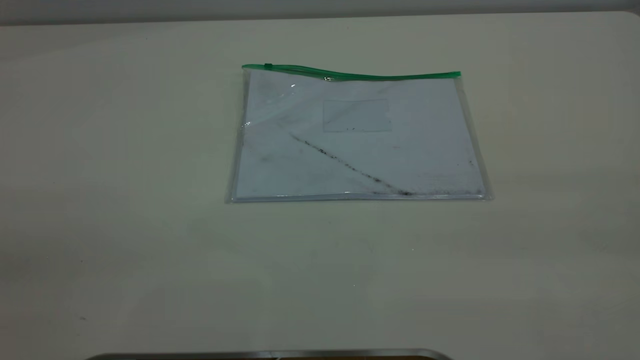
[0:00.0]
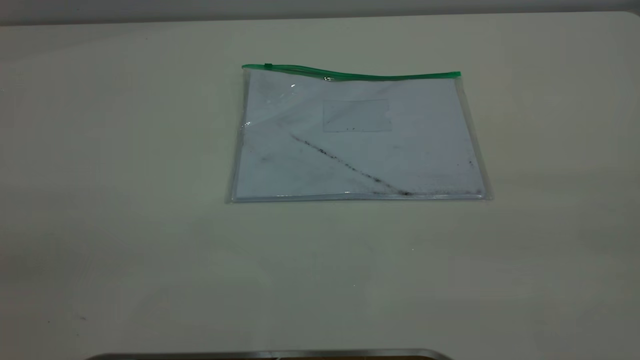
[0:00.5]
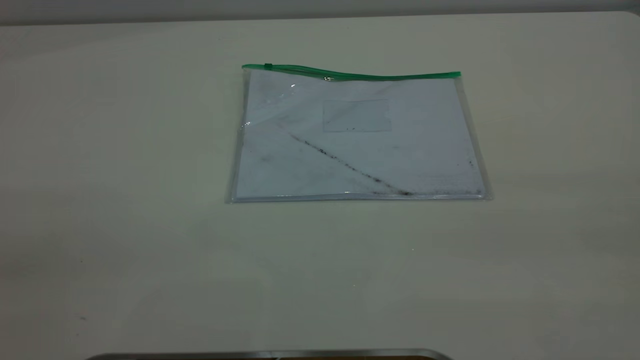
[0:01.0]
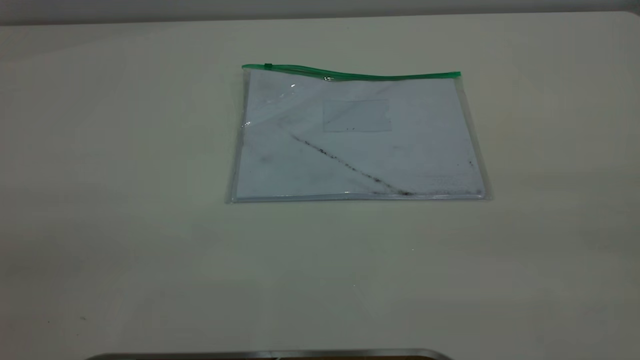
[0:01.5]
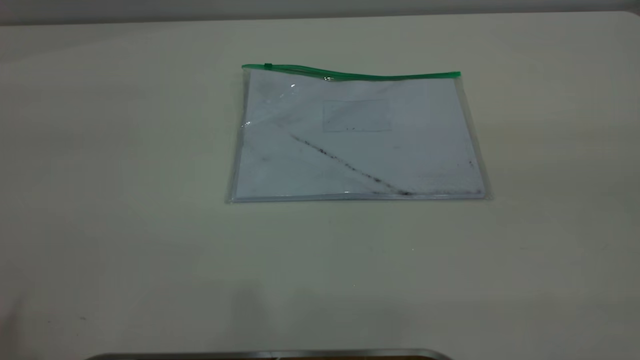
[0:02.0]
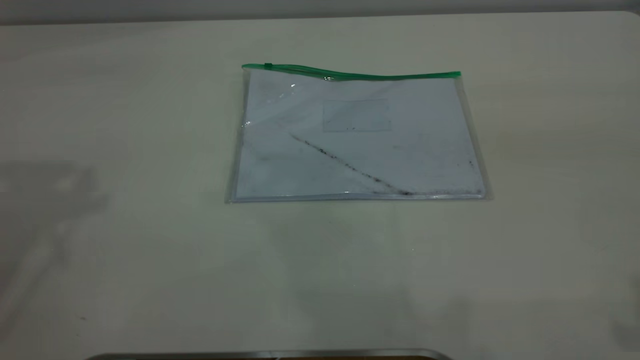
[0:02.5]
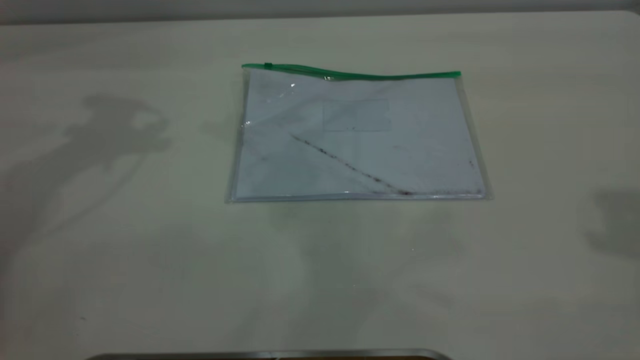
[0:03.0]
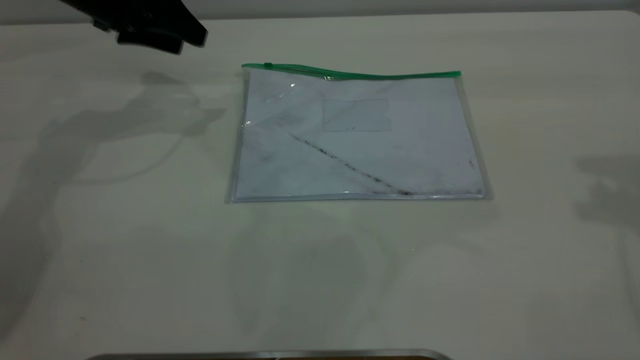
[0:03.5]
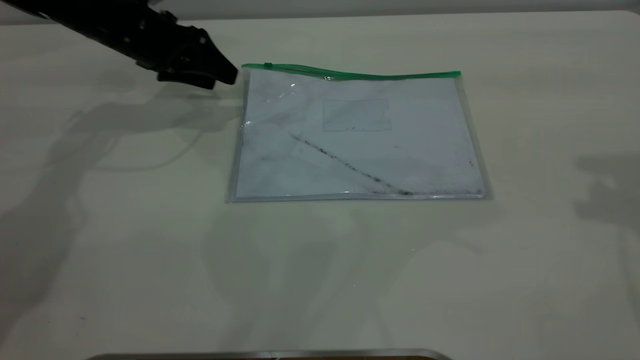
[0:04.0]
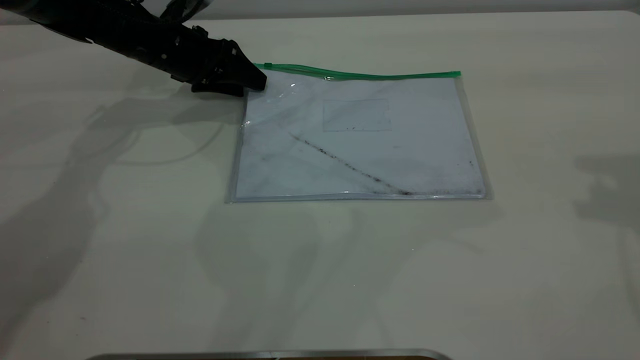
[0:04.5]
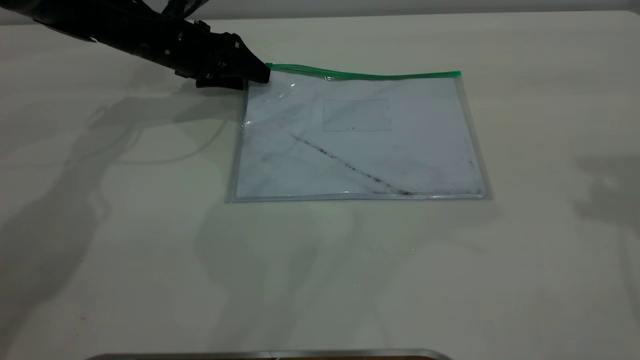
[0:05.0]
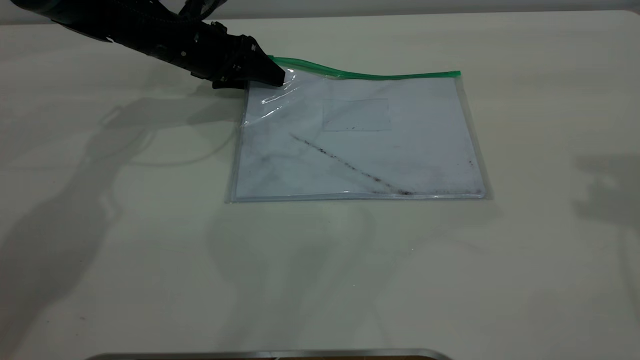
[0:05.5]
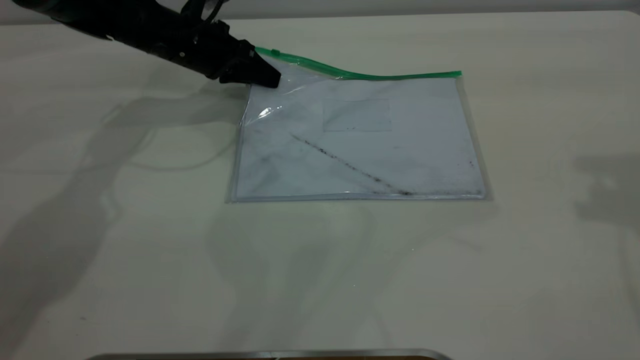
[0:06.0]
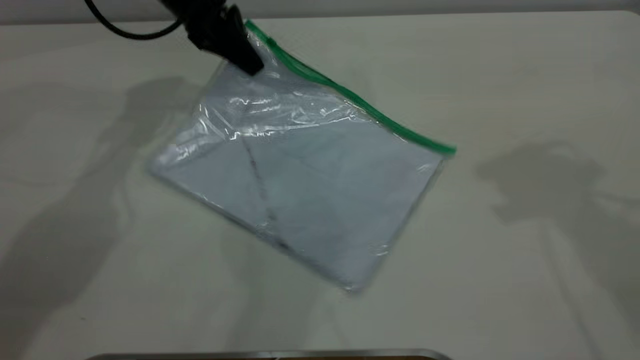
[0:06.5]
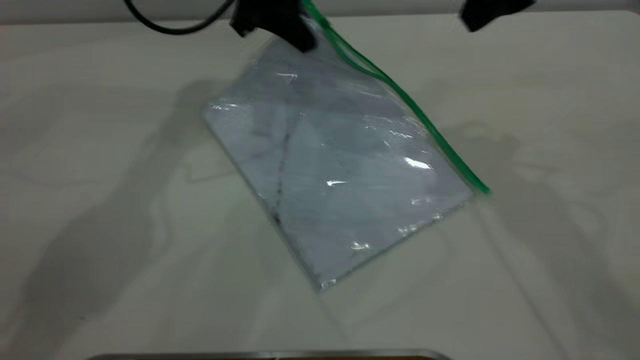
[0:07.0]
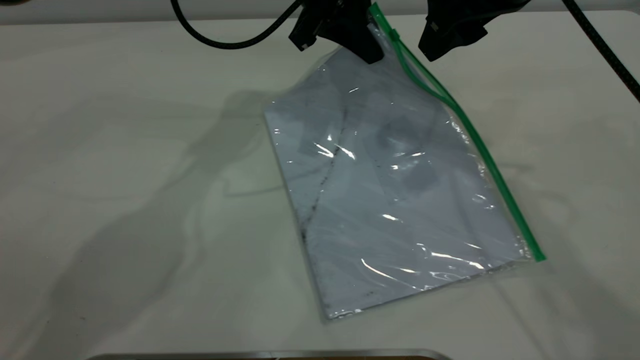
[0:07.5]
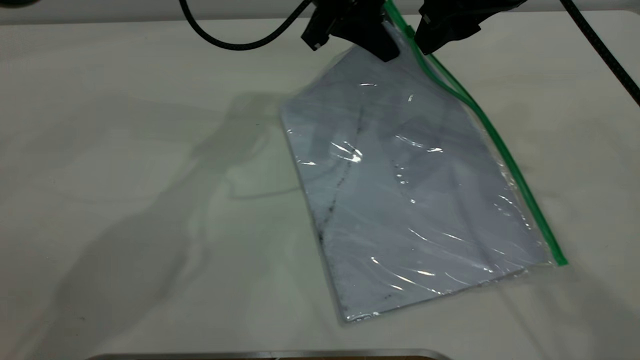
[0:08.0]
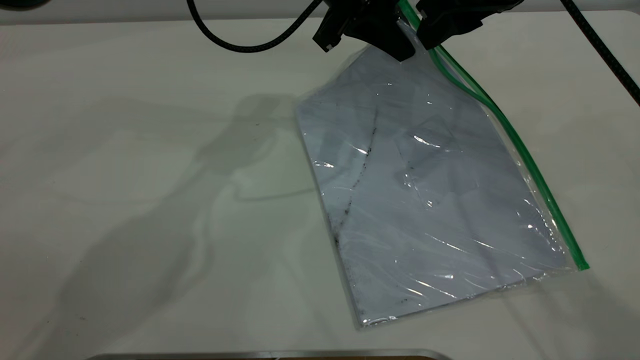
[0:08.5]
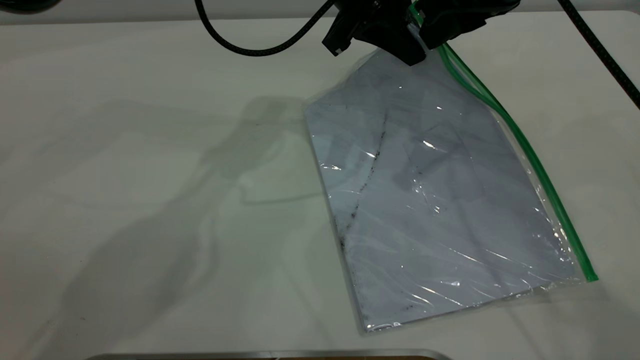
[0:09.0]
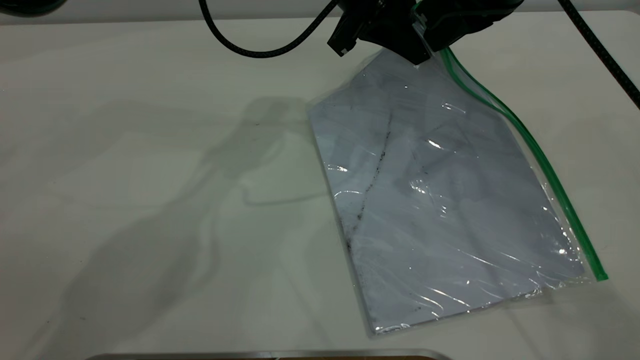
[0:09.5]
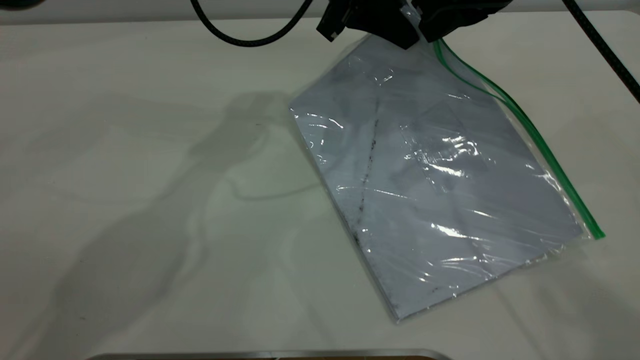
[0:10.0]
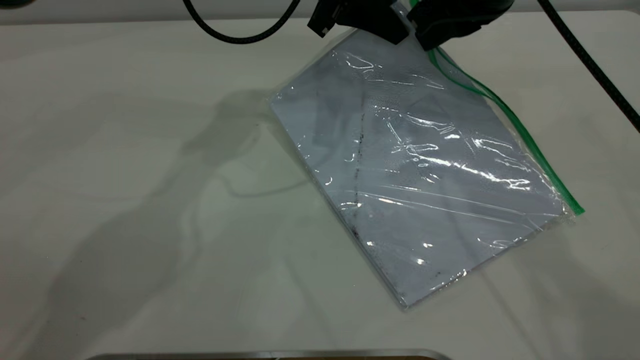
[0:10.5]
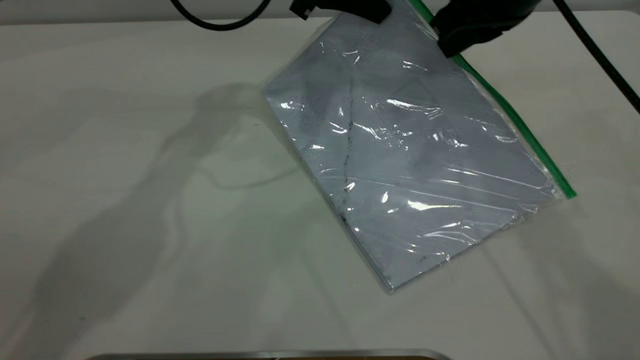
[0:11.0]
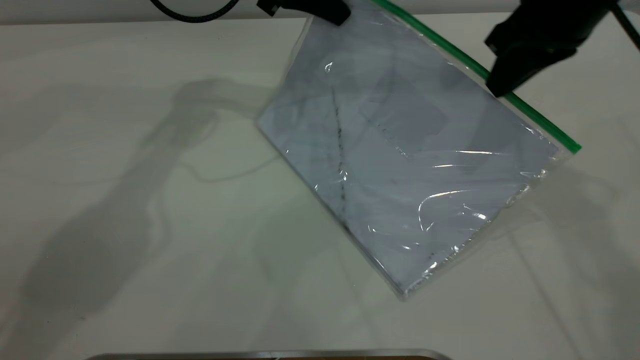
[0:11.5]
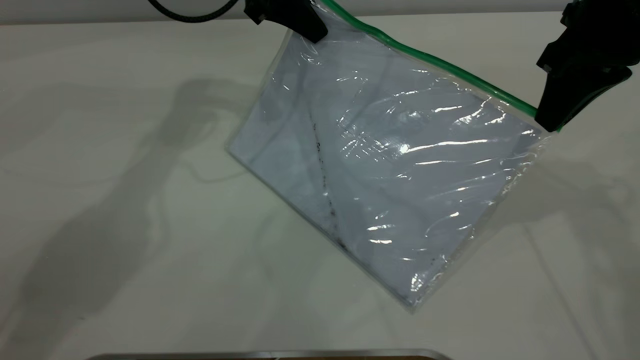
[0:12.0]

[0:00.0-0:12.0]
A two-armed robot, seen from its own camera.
Step, 0:00.0 to 0:06.0: Pick up the transparent plastic bag with the left gripper.
0:02.0 to 0:04.0: The left gripper goes about 50 cm forward and downward.
0:04.0 to 0:06.0: The left gripper shifts roughly 5 cm to the right, and closes its fingers.
0:06.0 to 0:08.0: The left gripper moves to the right and upward, about 20 cm; the right gripper moves to the left, downward and forward, some 20 cm.
0:08.0 to 0:10.0: The right gripper closes.
0:10.0 to 0:12.0: The left gripper moves to the left, roughly 10 cm; the right gripper travels to the right by about 10 cm.

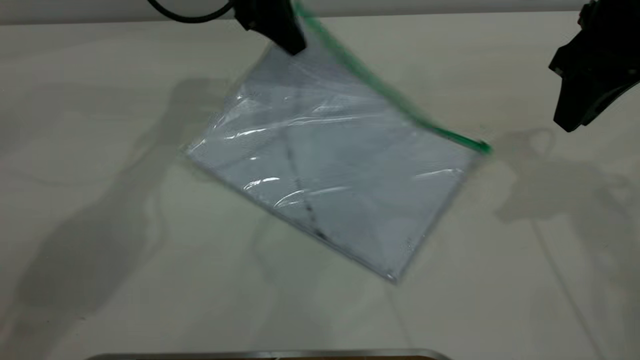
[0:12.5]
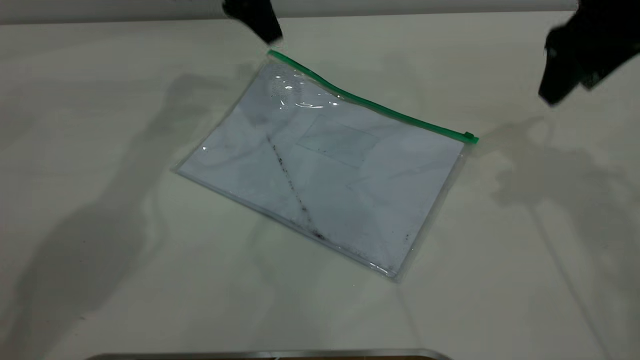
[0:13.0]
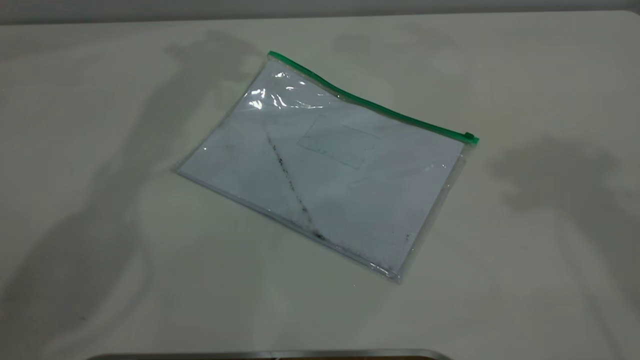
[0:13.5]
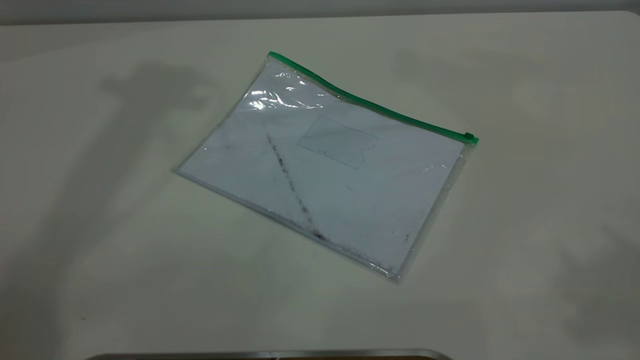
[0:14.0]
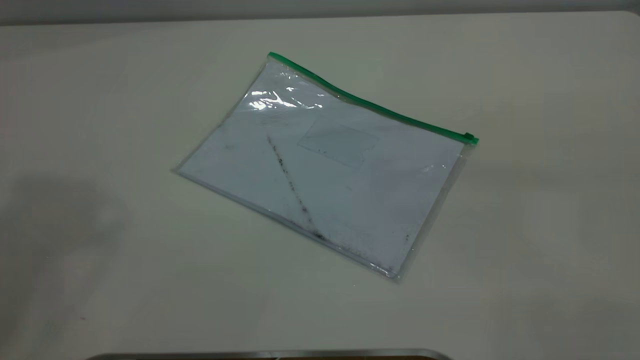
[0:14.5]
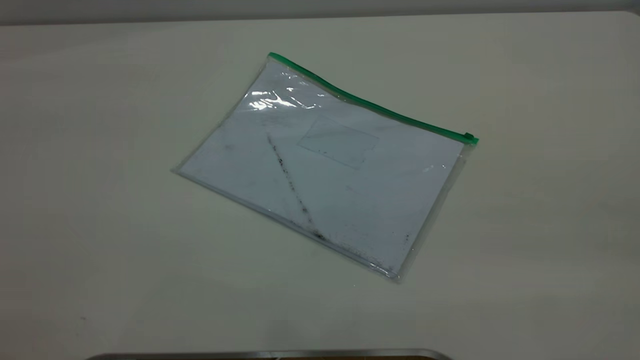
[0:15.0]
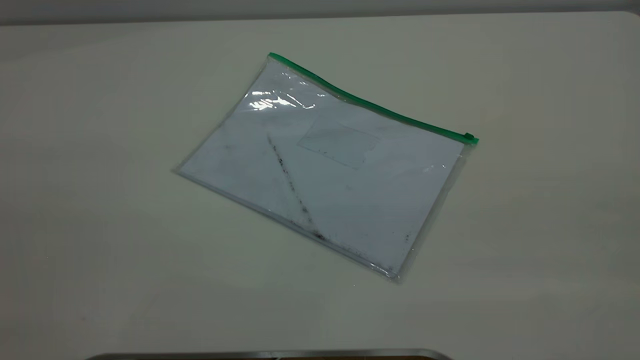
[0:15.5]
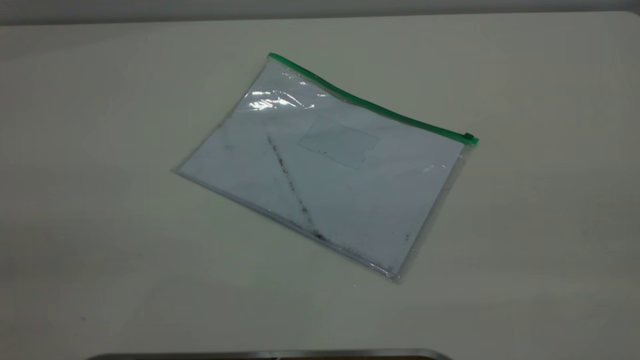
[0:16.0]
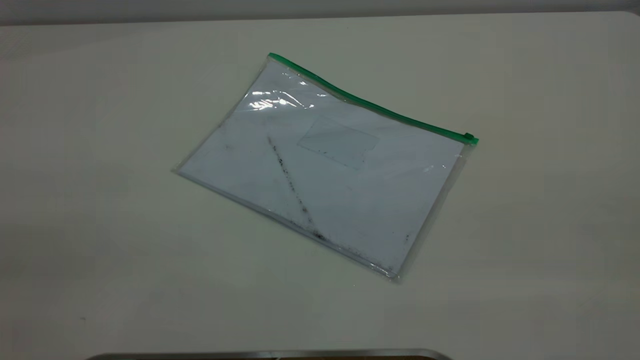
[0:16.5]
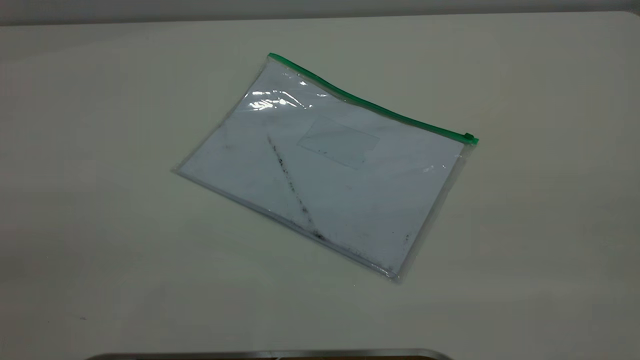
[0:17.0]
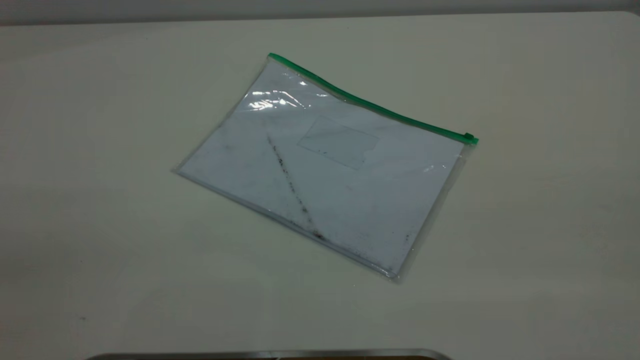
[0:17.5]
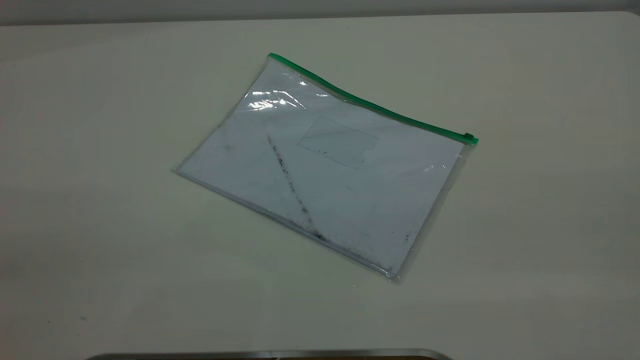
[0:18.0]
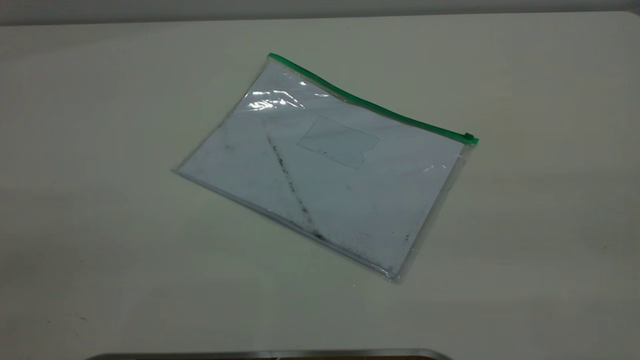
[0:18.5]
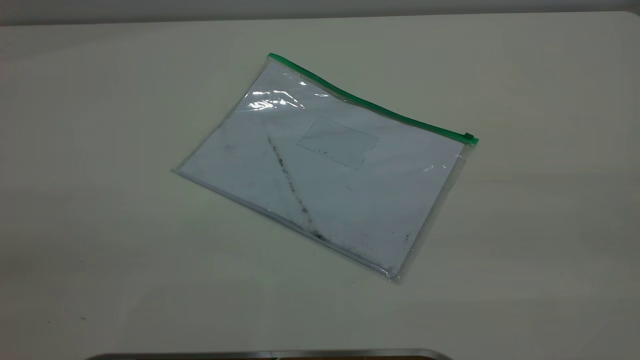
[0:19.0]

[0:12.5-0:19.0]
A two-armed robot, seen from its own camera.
Step, 0:12.5 to 0:13.0: Place the transparent plastic bag.
0:12.5 to 0:14.5: The right gripper shifts some 40 cm backward and upward, and opens, while the left gripper heads upward and backward, covering approximately 50 cm, and opens.
